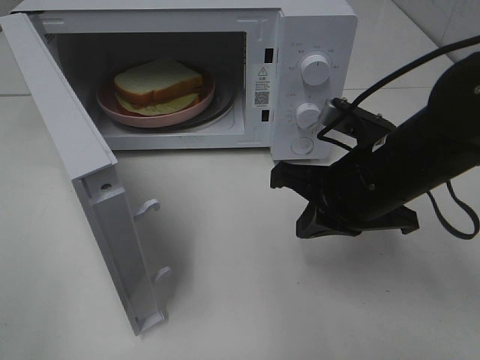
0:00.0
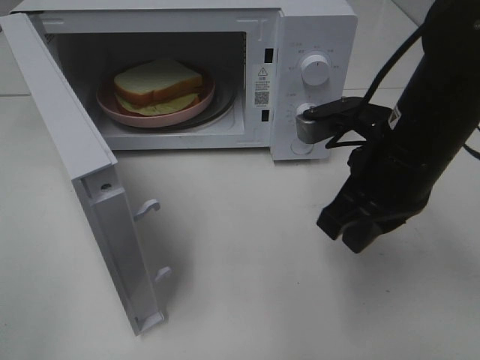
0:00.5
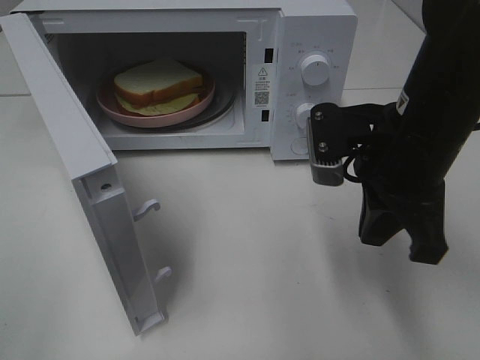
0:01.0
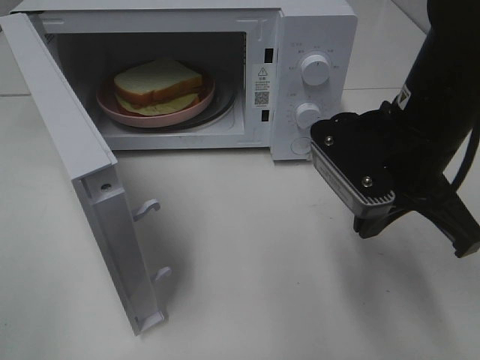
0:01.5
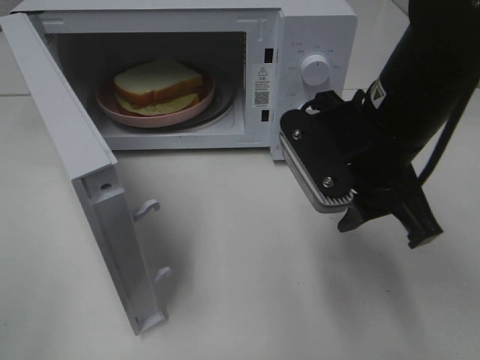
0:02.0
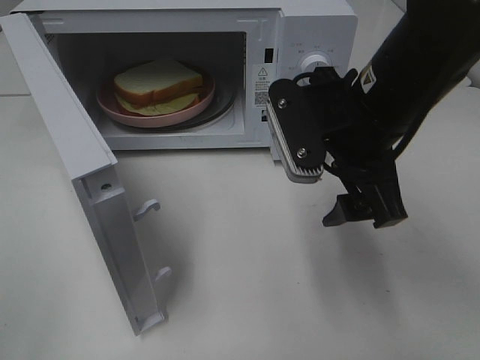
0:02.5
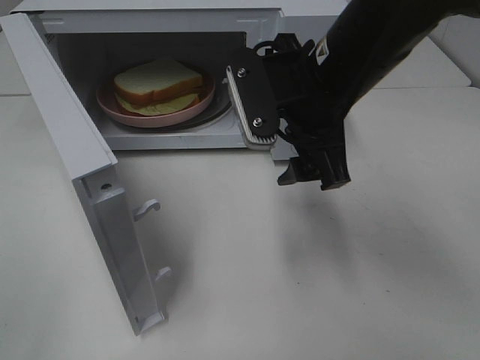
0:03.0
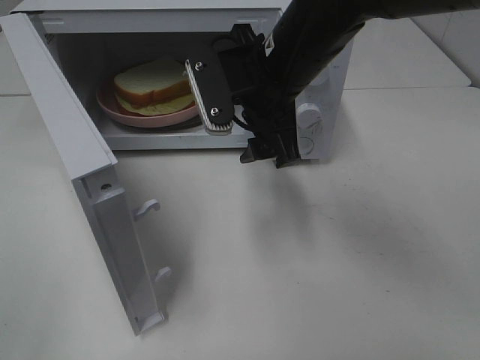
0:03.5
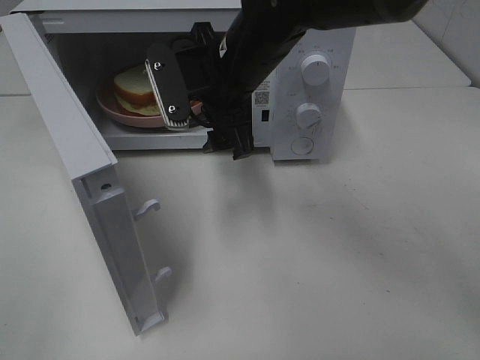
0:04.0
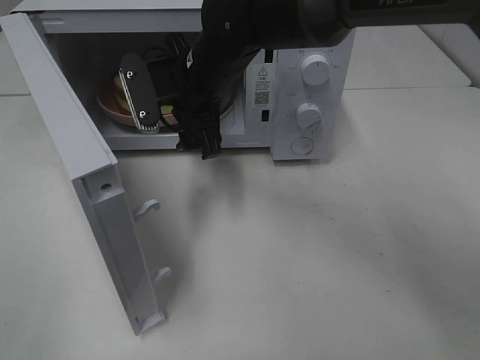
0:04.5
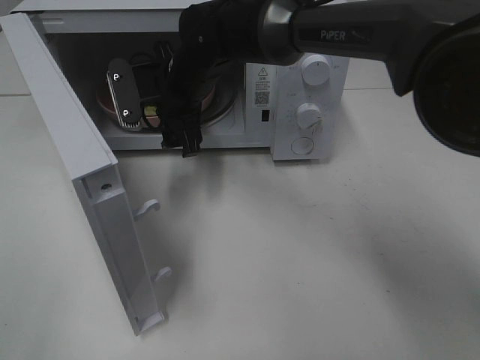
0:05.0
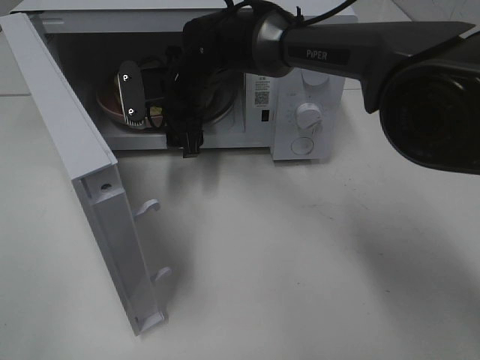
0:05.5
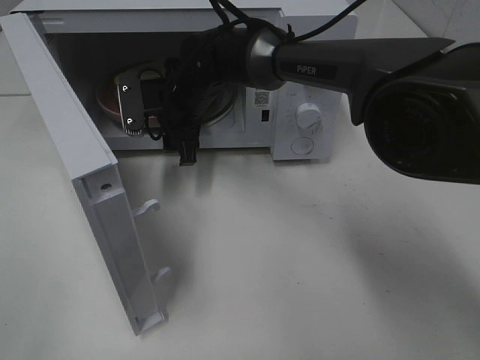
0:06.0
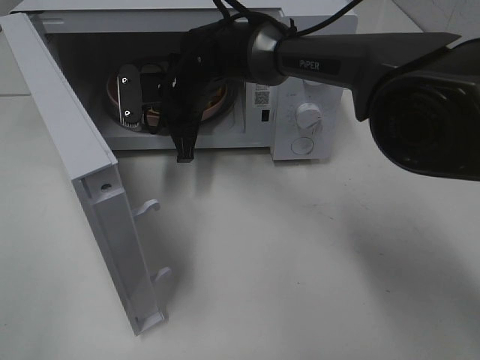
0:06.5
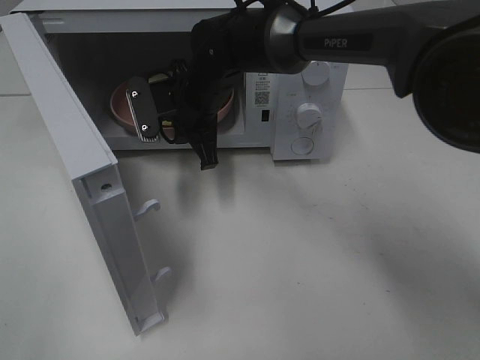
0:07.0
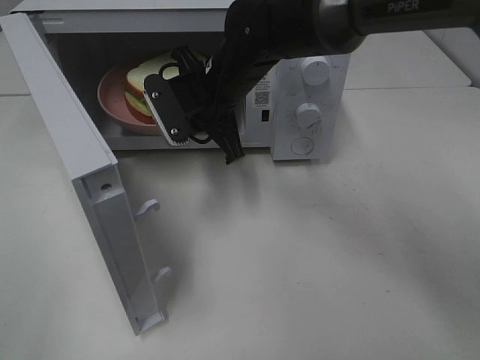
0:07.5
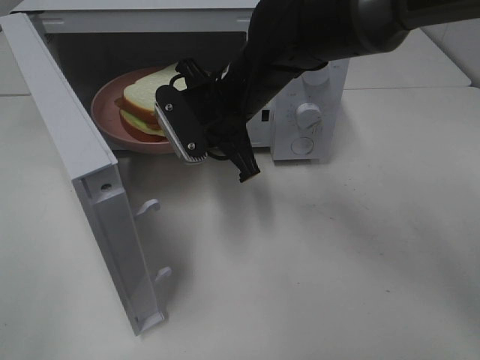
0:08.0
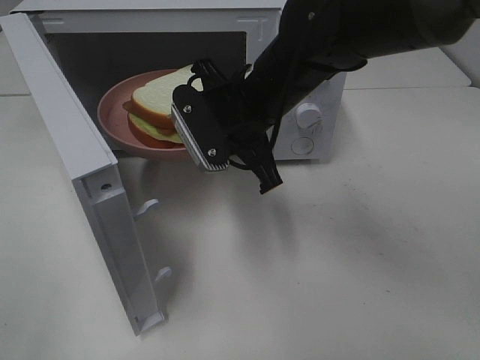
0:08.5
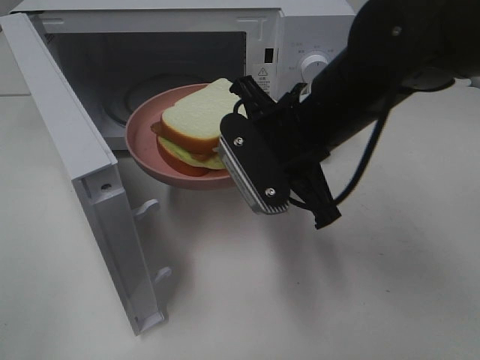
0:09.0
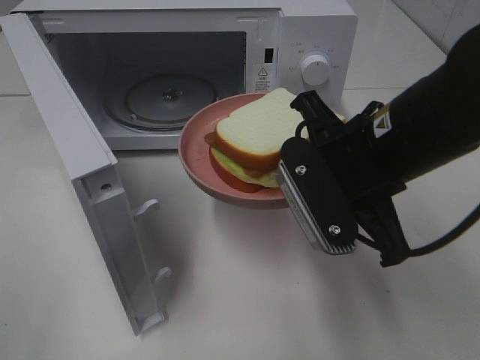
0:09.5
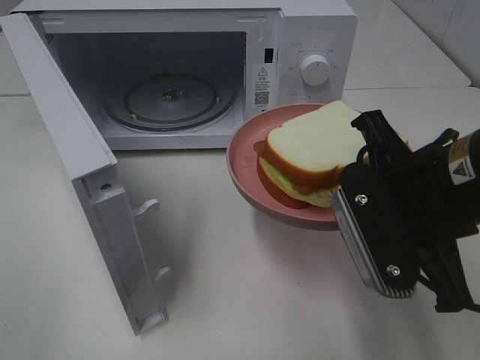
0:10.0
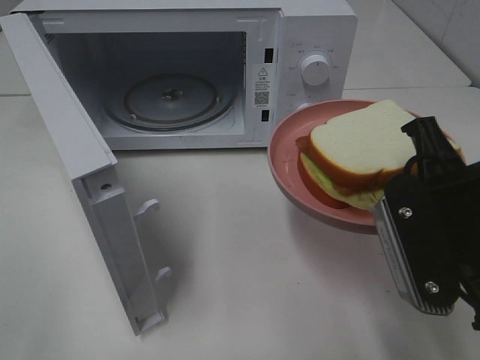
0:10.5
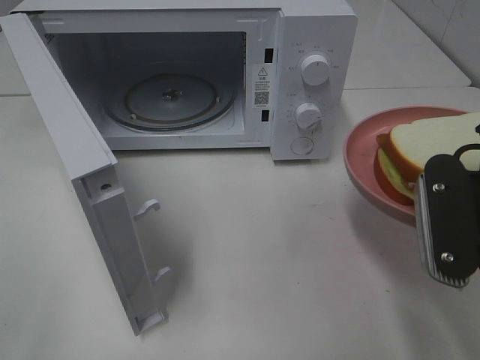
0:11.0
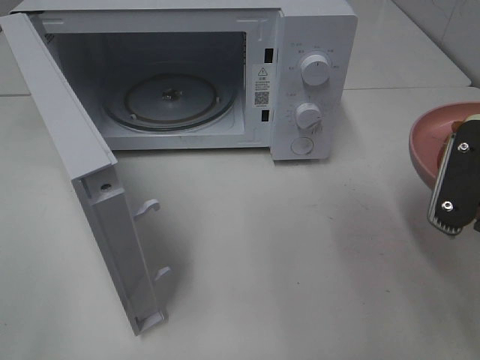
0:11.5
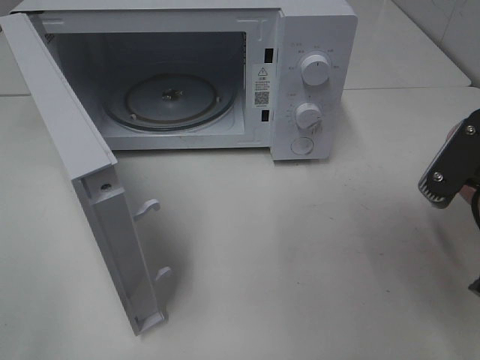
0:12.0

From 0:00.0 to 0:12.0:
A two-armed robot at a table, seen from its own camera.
Task of the whole recording: Heat Sandwich.
Step, from 0:00.0 to 0:06.0: Right hand: grab the plate with the sandwich.
From 0:00.0 to 0:02.0: The right gripper heads upward, covering roughly 5 cm, and opens.
From 0:02.0 to 0:04.0: The right gripper heads to the left and forward, covering some 15 cm.
From 0:04.0 to 0:06.0: The right gripper goes approximately 15 cm forward, downward and to the left.
From 0:06.0 to 0:08.0: The right gripper is displaced backward, to the right and upward by about 10 cm, and closes up.
From 0:08.0 to 0:10.0: The right gripper travels backward and to the right by approximately 25 cm.
From 0:10.0 to 0:12.0: The right gripper moves to the right, some 5 cm.

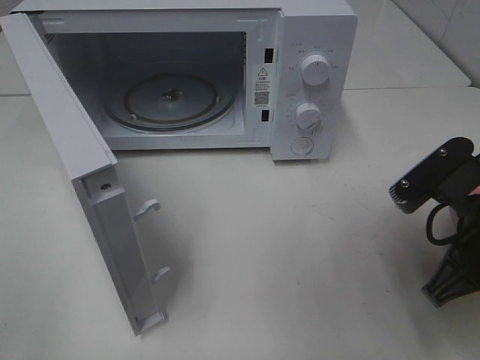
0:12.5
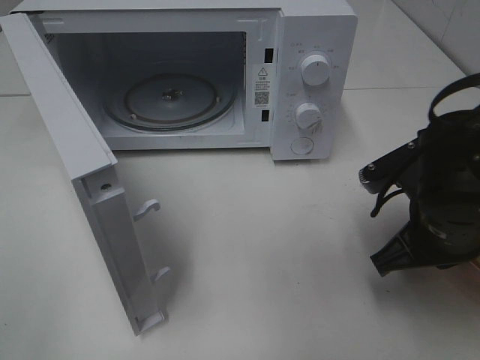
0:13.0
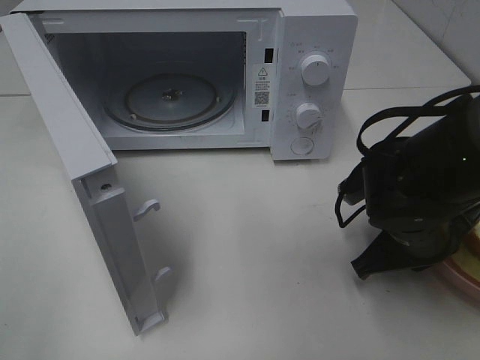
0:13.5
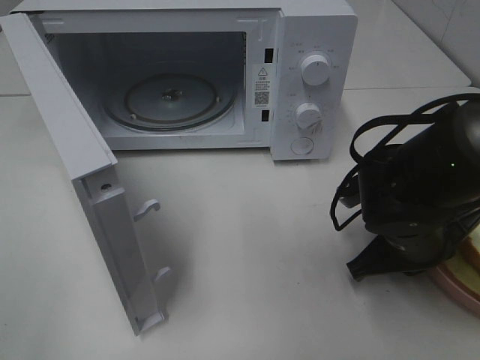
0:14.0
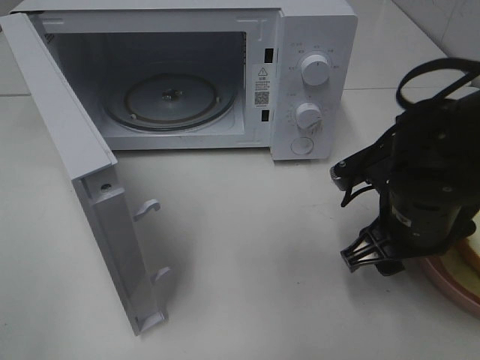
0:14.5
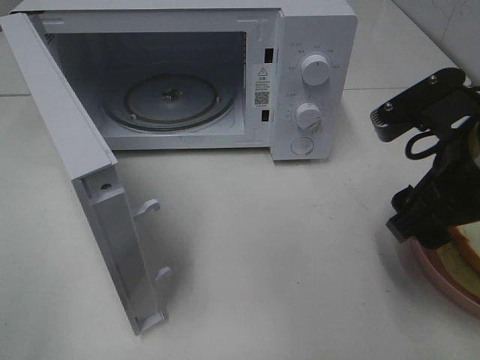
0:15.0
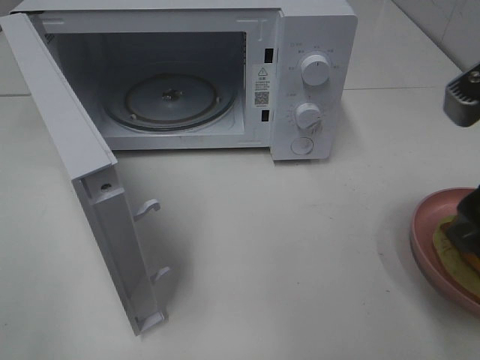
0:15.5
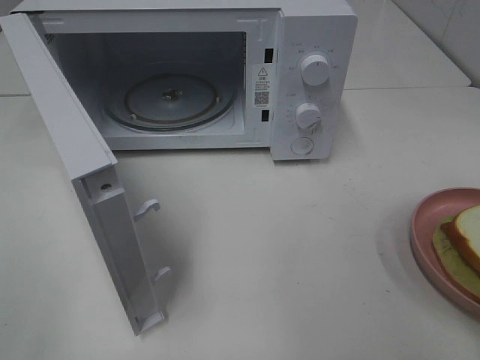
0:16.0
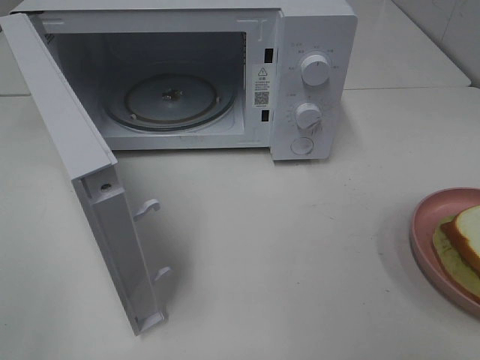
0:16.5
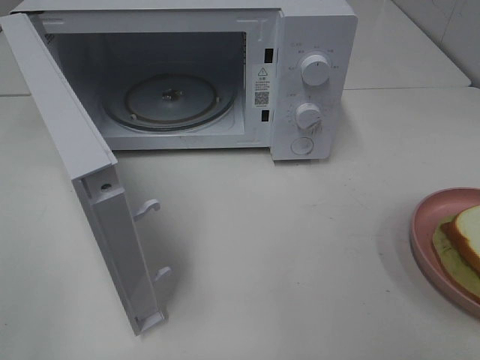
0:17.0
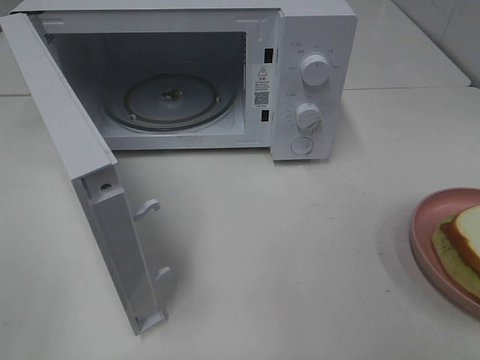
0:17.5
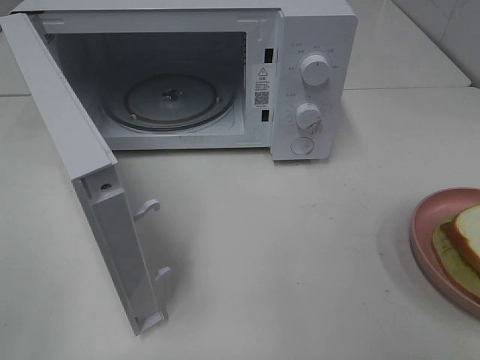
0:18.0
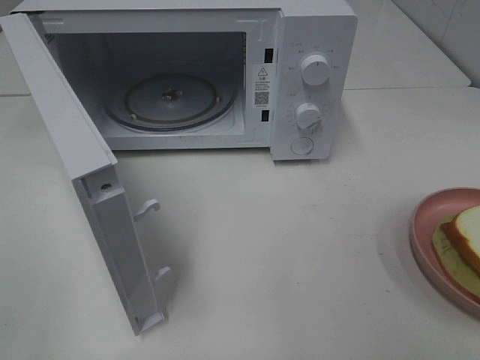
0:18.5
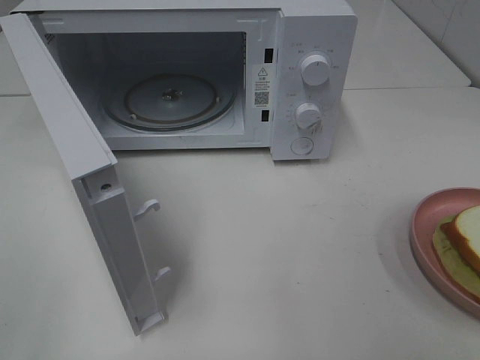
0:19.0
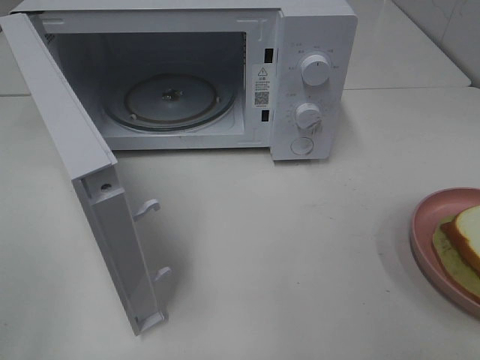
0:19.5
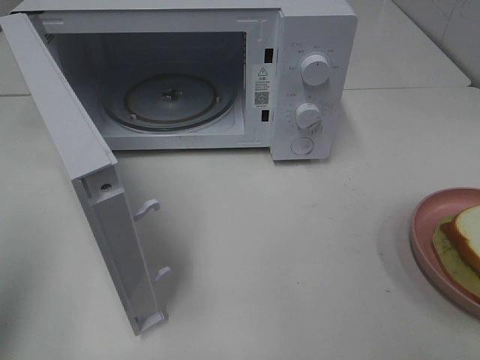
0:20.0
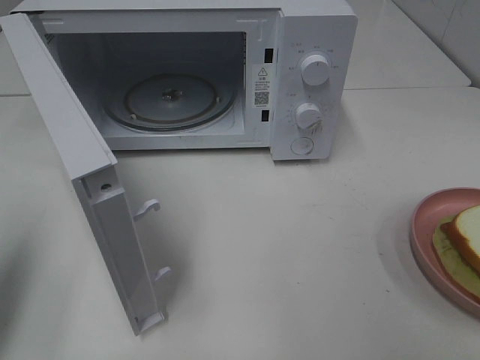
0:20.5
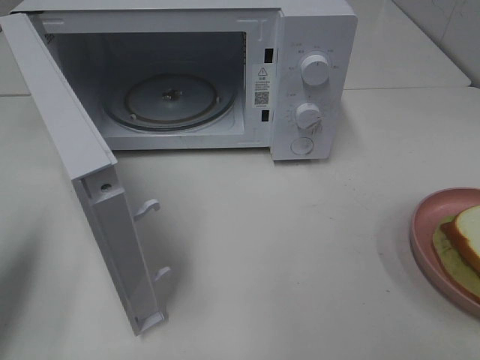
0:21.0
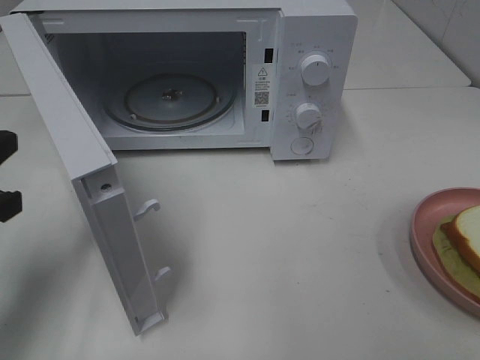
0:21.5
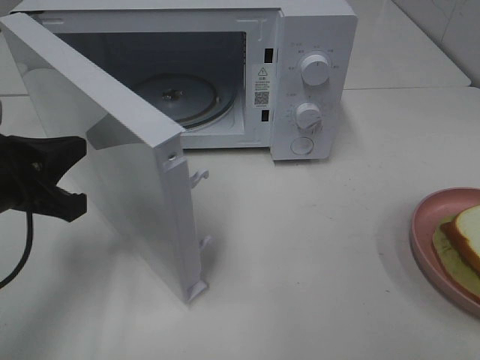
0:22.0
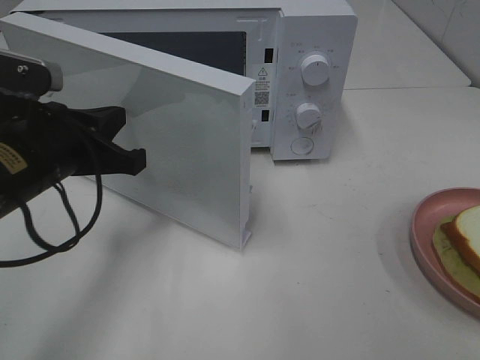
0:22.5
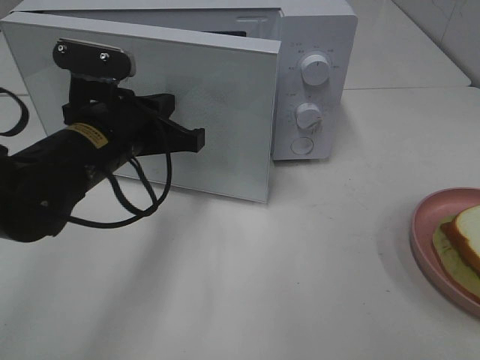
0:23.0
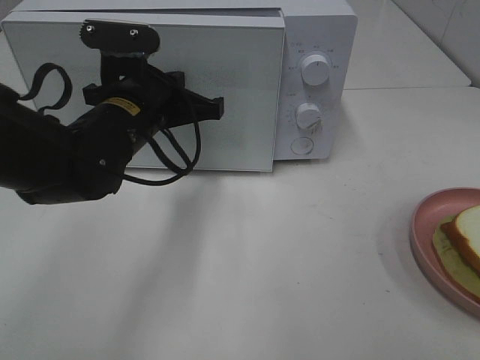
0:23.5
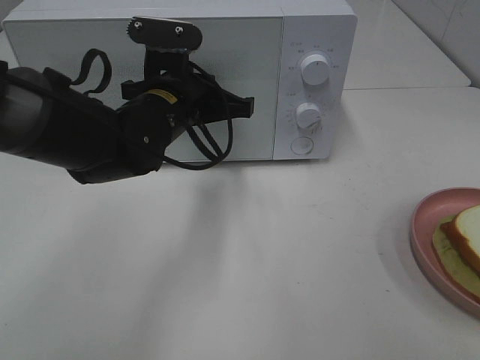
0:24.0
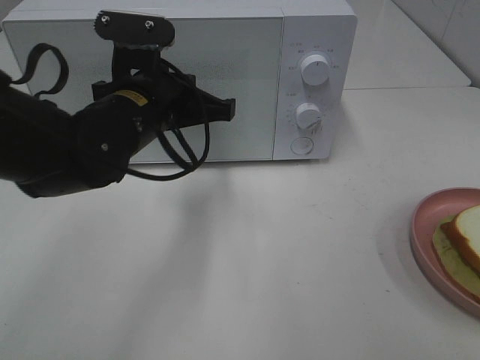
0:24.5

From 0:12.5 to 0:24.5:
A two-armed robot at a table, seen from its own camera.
Task of the whole recording: Heat Sandwich.
Step, from 0:12.5 to 0:15.0: Right hand: place the plate on the table.
From 0:12.5 to 0:14.5: The right gripper shifts by some 5 cm, and opens up.
From 0:14.5 to 0:16.5: The right gripper heads upward, backward and to the right, covering some 30 cm.
From 0:18.5 to 0:20.5: The left gripper shifts some 15 cm forward, and closes.
From 0:20.5 to 0:22.5: The left gripper heads to the right, forward and downward, covering roughly 20 cm.
From 0:22.5 to 0:24.5: The left gripper heads to the right and forward, covering approximately 10 cm.

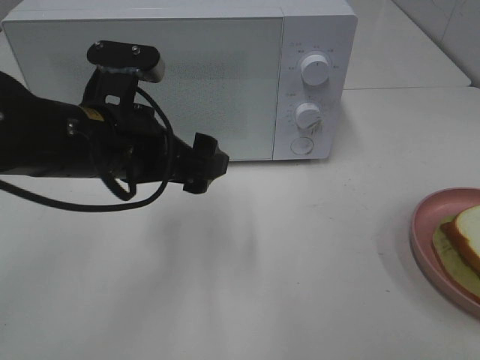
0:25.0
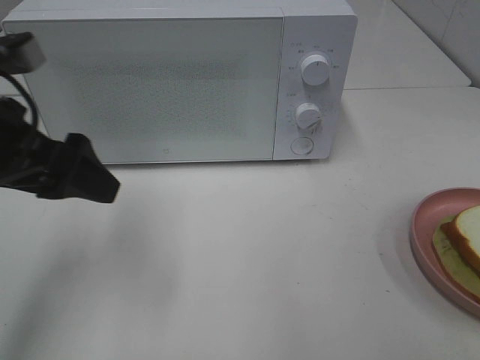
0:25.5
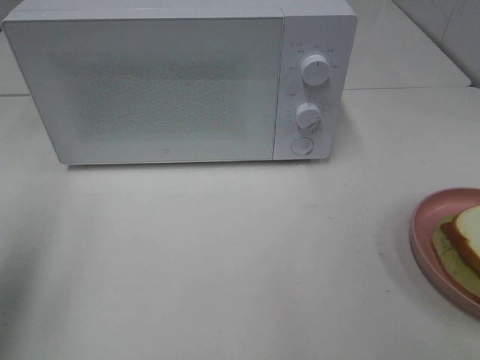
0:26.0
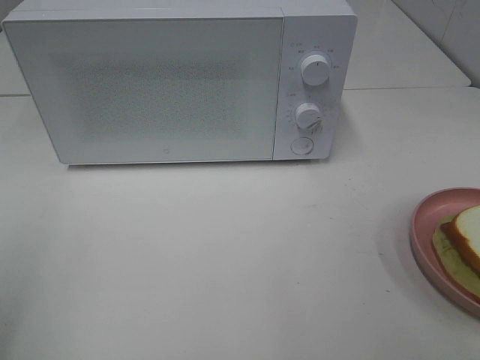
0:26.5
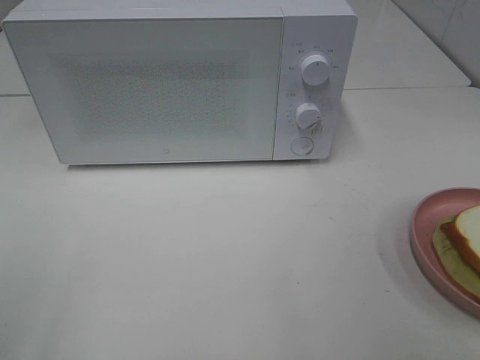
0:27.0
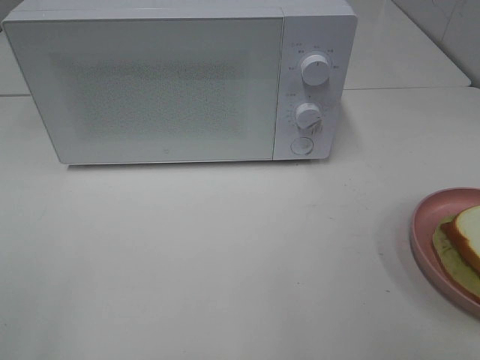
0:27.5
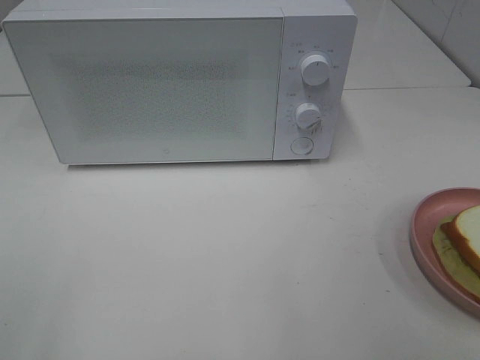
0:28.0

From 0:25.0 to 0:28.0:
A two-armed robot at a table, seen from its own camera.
Task of the whole recording: Heat Sandwich.
From 0:25.0 to 0:26.5: The left gripper travels to the left, backward and upward by approximately 30 cm.
